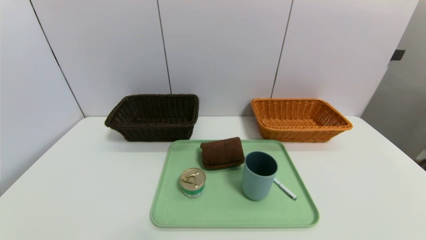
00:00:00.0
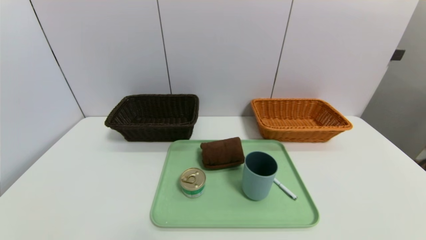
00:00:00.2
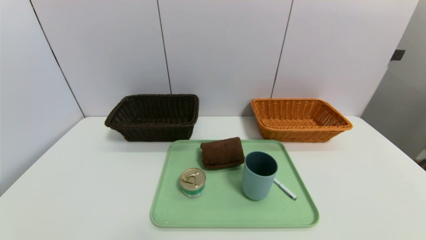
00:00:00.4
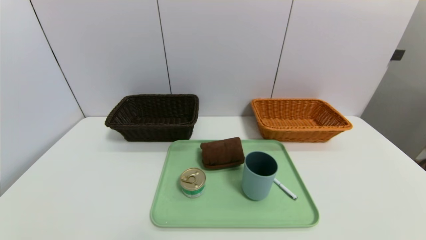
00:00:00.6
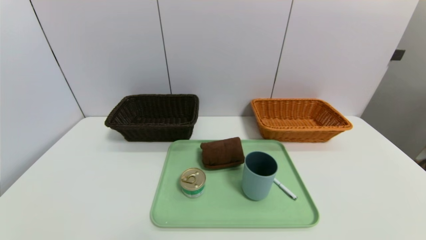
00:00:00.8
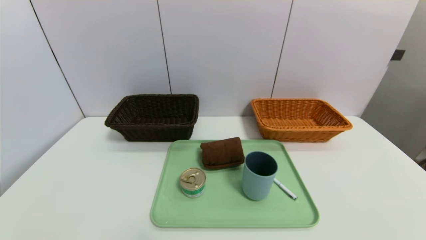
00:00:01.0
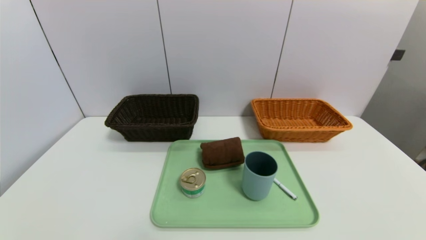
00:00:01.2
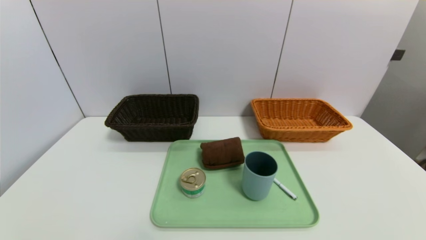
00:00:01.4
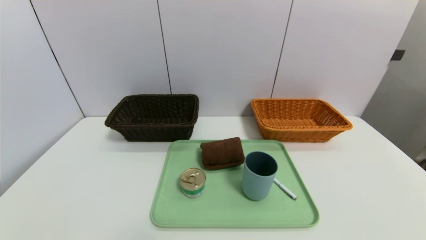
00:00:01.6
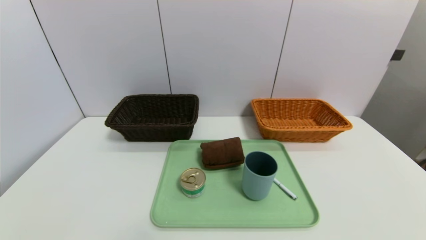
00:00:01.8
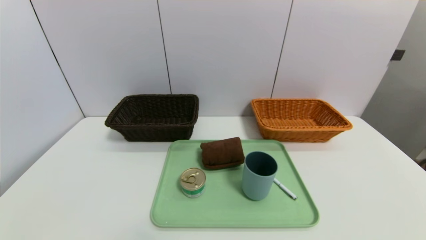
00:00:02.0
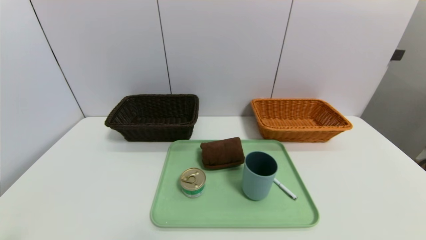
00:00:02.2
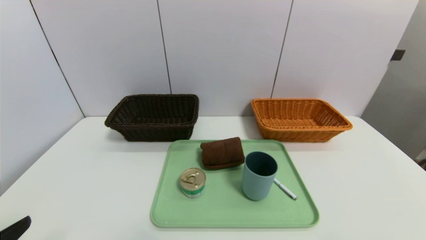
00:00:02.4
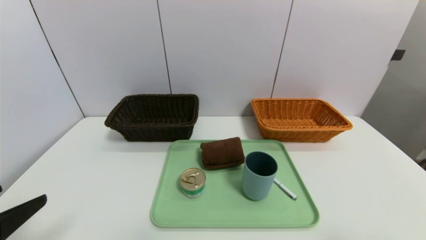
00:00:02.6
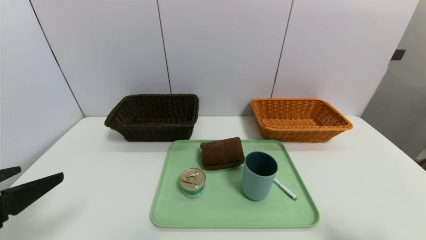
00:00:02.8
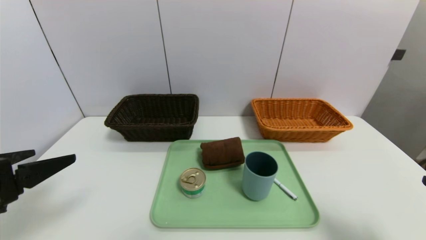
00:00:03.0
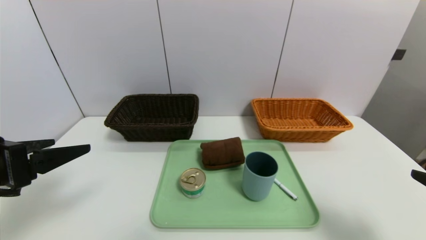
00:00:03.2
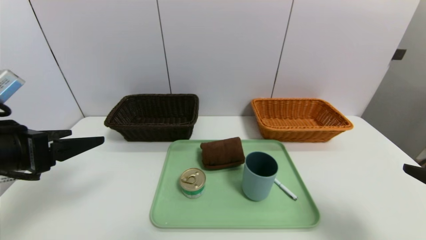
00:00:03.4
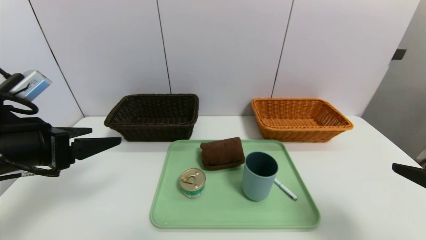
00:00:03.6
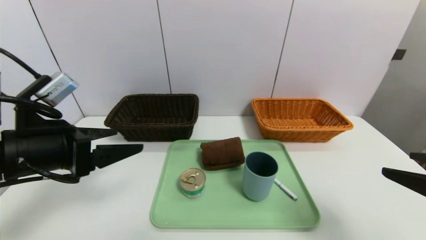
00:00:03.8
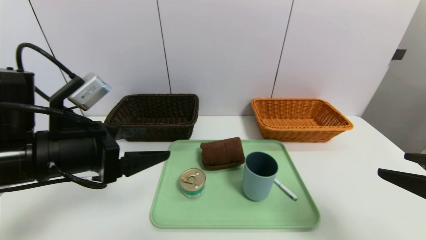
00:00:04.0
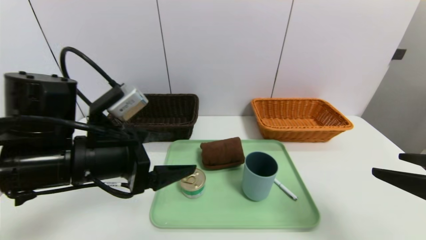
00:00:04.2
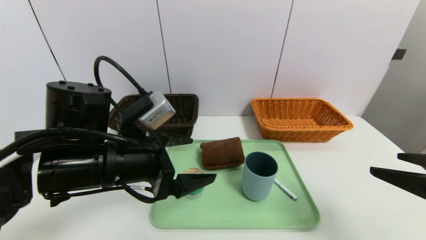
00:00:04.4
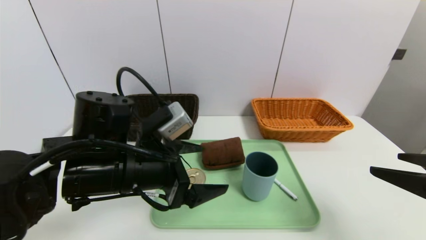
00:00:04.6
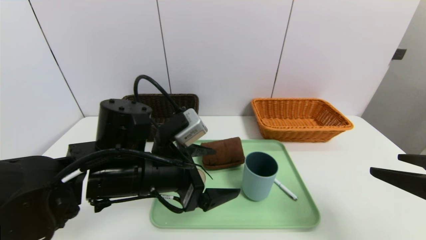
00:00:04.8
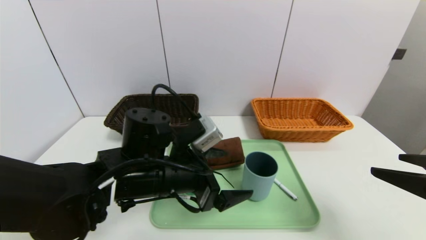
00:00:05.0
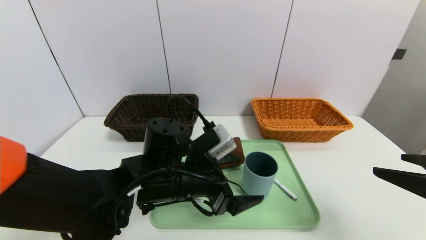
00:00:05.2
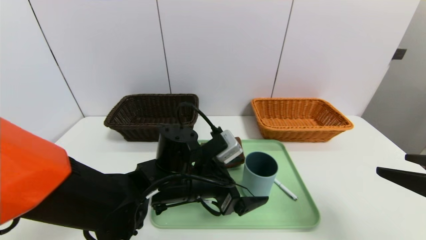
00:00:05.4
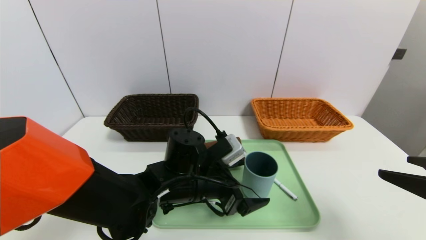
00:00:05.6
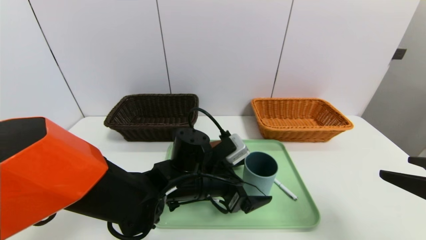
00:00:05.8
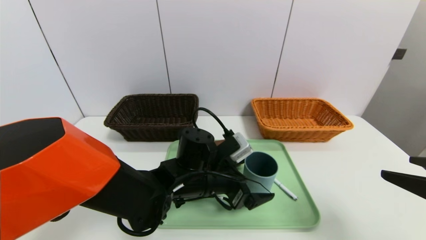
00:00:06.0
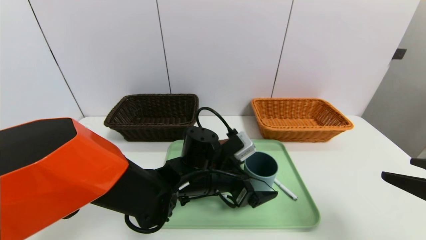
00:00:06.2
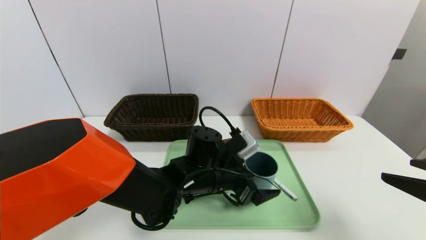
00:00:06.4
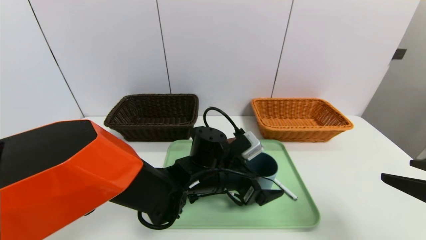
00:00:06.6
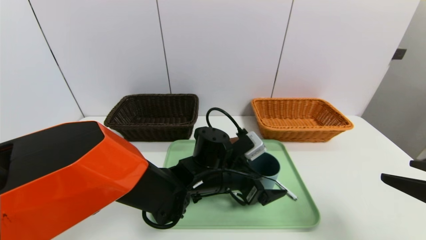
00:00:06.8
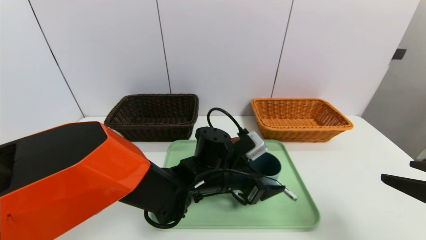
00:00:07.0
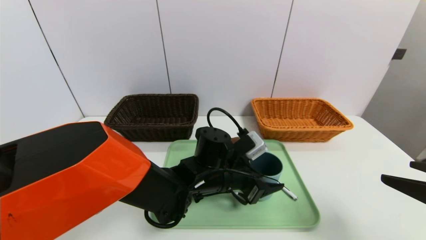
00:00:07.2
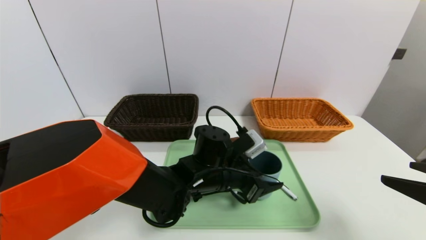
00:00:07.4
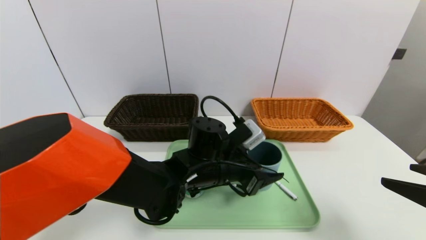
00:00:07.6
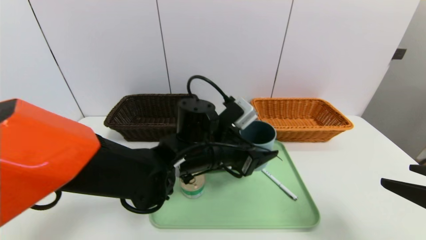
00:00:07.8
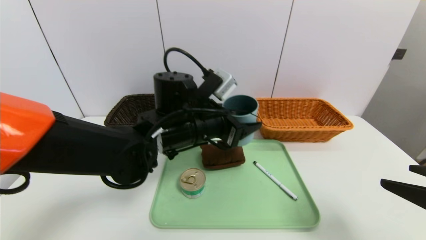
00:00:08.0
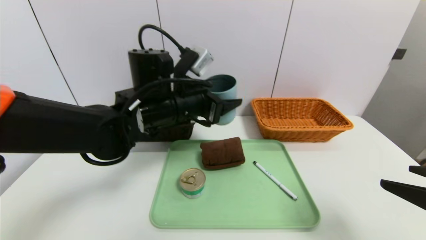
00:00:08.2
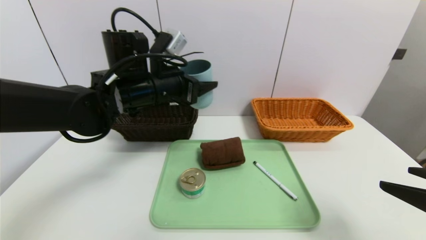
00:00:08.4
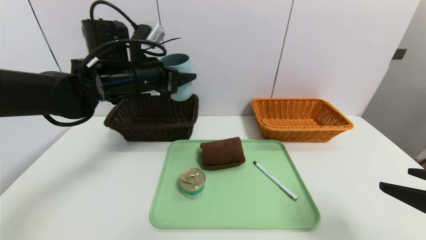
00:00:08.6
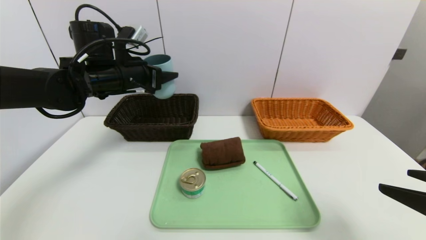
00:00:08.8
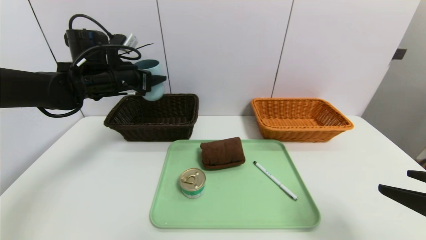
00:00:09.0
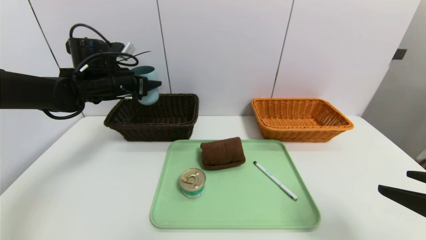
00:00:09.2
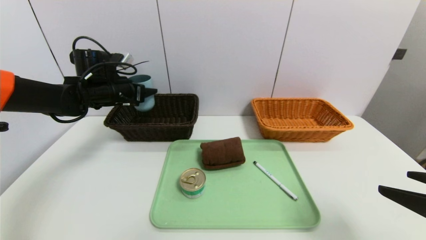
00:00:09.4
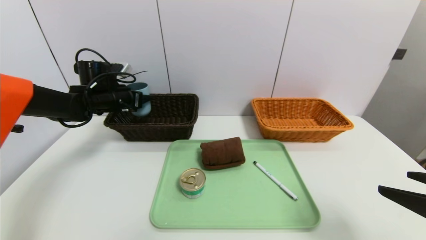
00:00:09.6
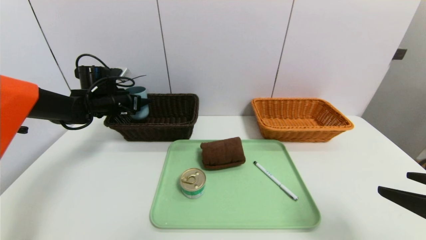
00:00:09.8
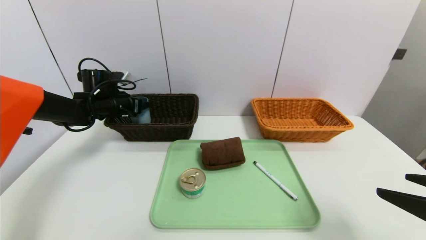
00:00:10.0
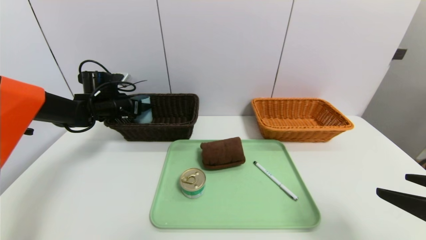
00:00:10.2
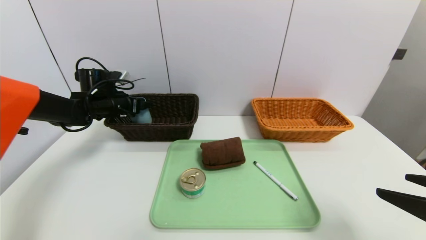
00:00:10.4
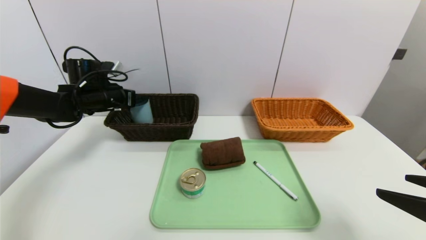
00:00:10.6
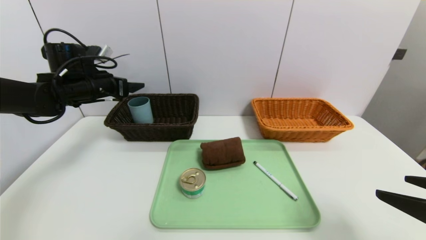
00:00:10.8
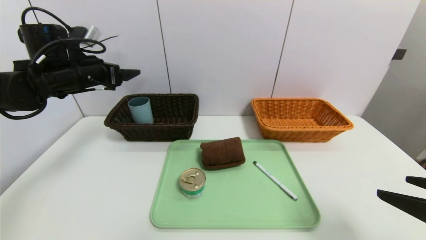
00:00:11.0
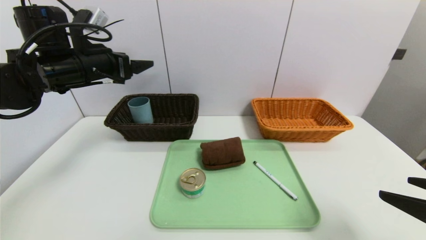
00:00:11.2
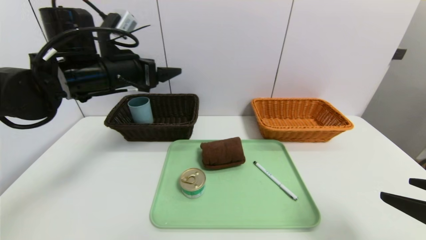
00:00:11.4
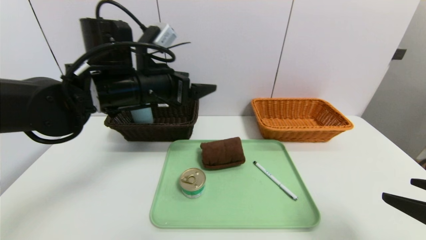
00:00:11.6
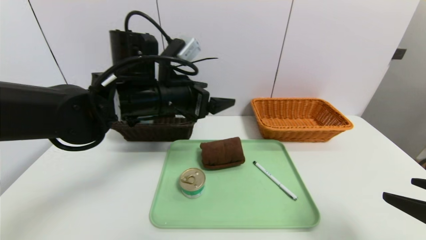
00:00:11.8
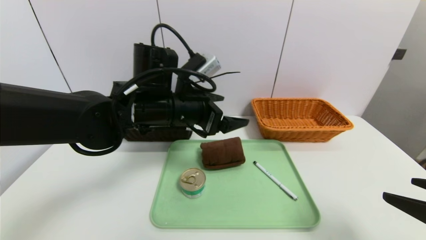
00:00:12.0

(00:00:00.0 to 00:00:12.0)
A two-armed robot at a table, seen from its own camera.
Task of the whole recording: place the food in the right basket with the right gripper, and place the non food items in the left basket with the left gripper.
Step, 00:00:00.0 - 00:00:10.6: Grasp the blue cup and put it in the left basket.
00:00:01.6 - 00:00:03.0: Both grippers move upward and forward, about 20 cm.
00:00:03.0 - 00:00:04.4: The left gripper travels to the right and forward by approximately 15 cm. Meanwhile the right gripper moves some 5 cm.
00:00:04.4 - 00:00:06.0: The left gripper goes about 15 cm to the right, downward and forward.
00:00:06.0 - 00:00:07.6: There are only small adjustments of the grippers.
00:00:07.6 - 00:00:09.0: The left gripper moves to the left, upward and forward, about 30 cm.
00:00:09.0 - 00:00:10.4: The left gripper goes roughly 10 cm downward, to the left and forward.
00:00:10.4 - 00:00:12.0: The left gripper shifts about 25 cm to the right and backward.

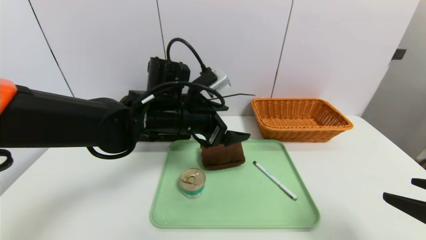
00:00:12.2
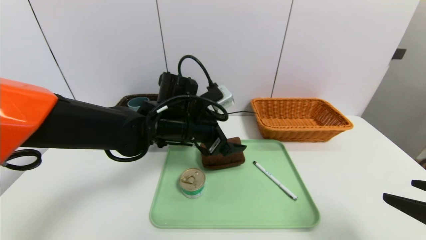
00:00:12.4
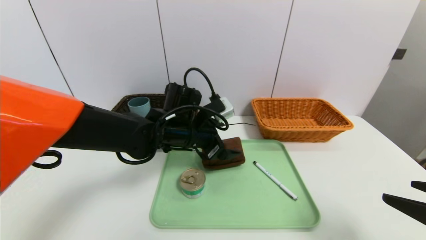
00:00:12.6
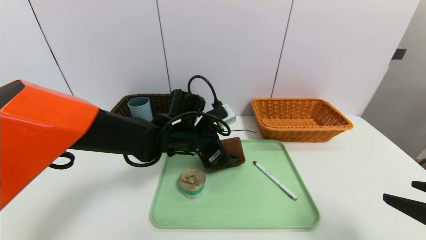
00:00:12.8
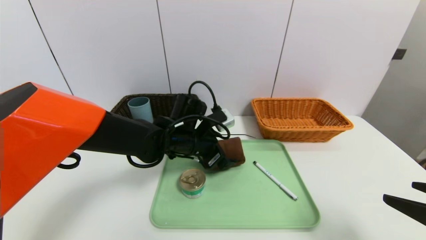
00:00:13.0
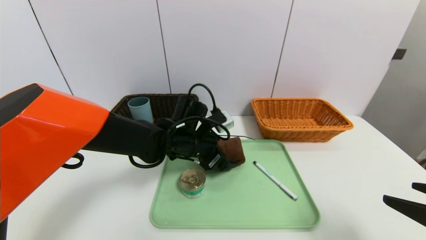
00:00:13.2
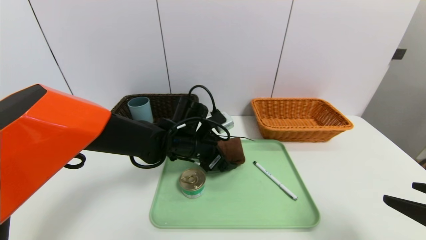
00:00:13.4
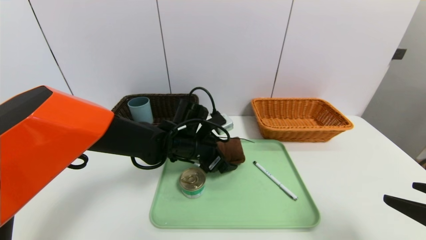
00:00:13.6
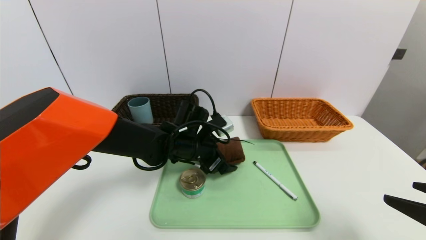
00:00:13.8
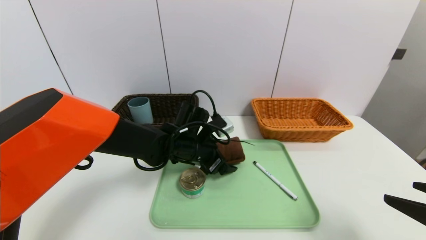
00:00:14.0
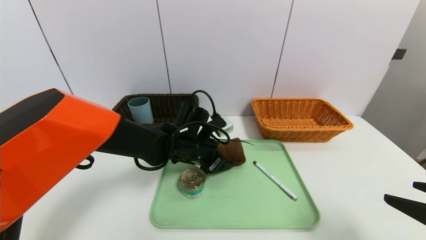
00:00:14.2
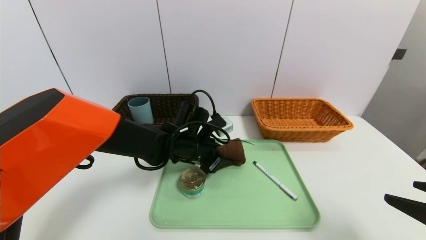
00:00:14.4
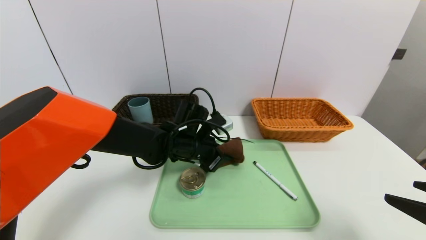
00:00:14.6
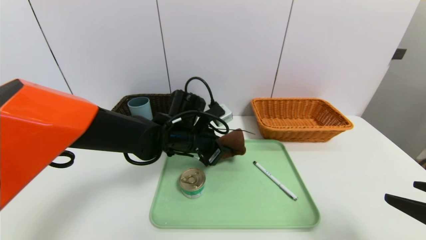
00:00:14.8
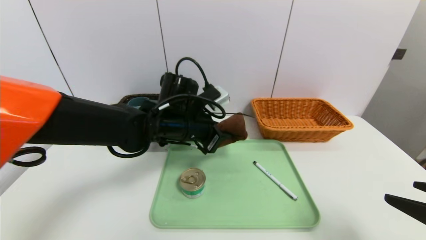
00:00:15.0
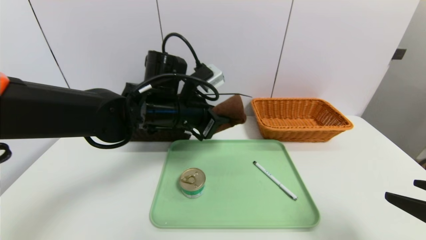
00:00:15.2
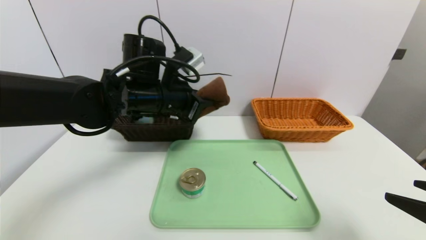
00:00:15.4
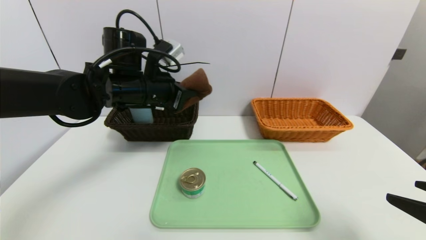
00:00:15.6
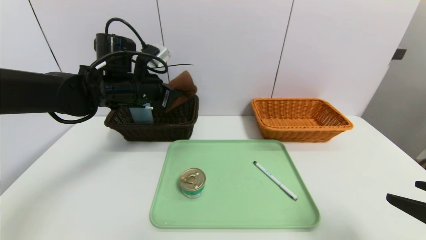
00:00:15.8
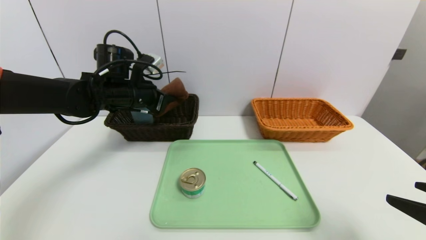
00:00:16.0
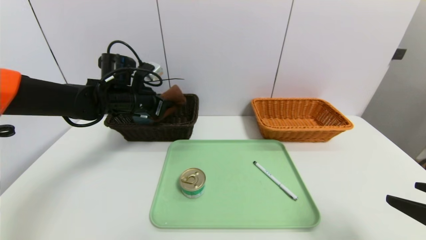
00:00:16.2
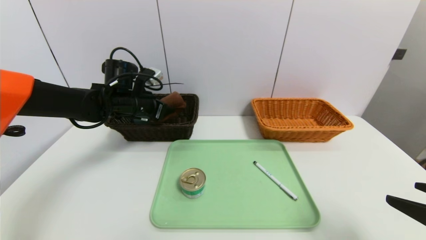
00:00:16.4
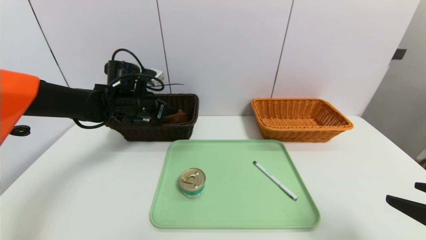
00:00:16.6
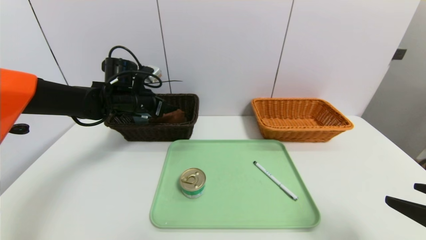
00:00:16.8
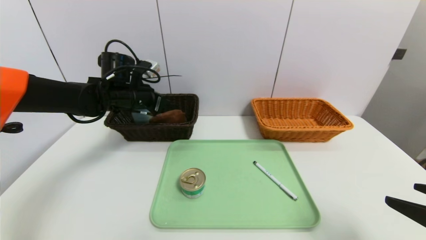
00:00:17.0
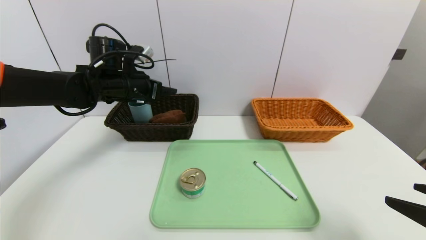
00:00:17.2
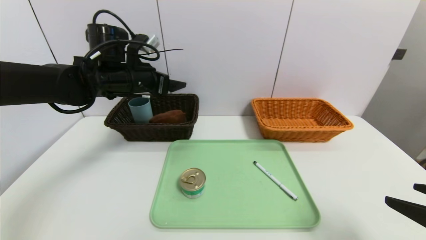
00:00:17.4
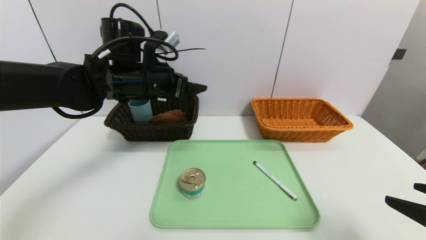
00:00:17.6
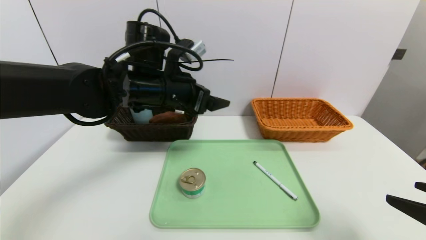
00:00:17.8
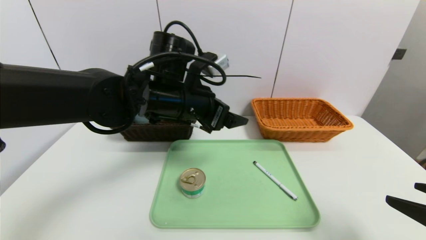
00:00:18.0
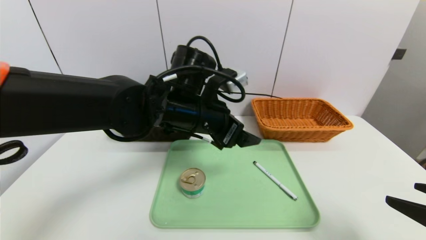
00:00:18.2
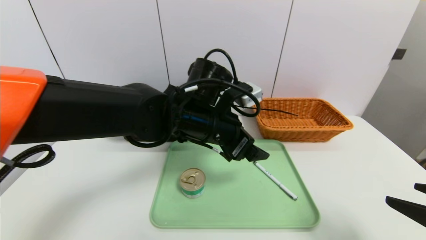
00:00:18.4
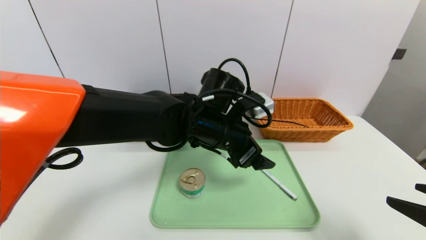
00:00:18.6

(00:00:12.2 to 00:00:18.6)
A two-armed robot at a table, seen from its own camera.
Task of the whole recording: place the food in the right basket with the right gripper, and place the non food items in the left basket with the left gripper.
Step, 00:00:12.2 - 00:00:17.0: Grasp the brown towel and put it in the left basket.
00:00:12.2 - 00:00:13.8: The left gripper is displaced downward by some 10 cm.
00:00:13.8 - 00:00:15.4: The left gripper travels upward and to the left by some 15 cm, and closes its fingers.
00:00:15.4 - 00:00:17.0: The left gripper moves to the left and forward, about 10 cm, and opens.
00:00:17.0 - 00:00:18.6: The left gripper travels to the right and backward by roughly 25 cm.
